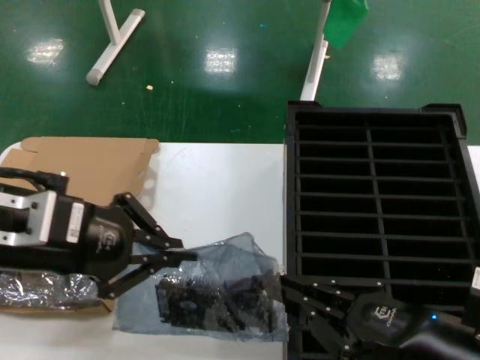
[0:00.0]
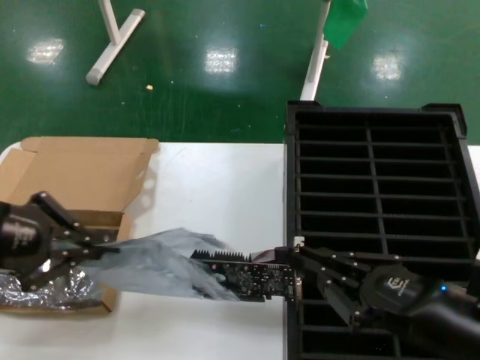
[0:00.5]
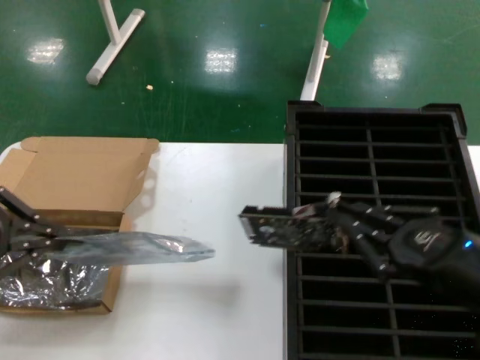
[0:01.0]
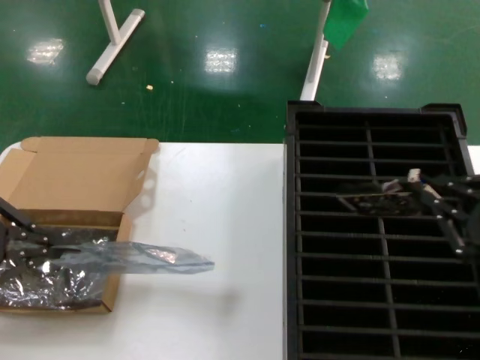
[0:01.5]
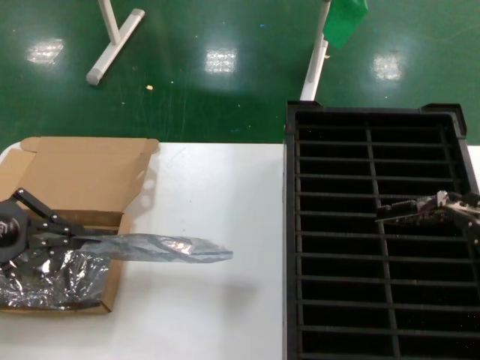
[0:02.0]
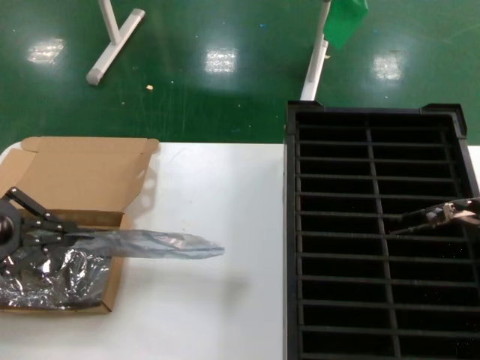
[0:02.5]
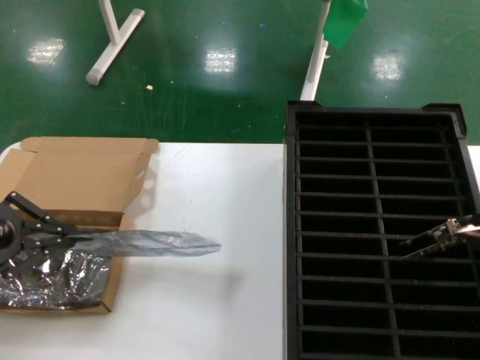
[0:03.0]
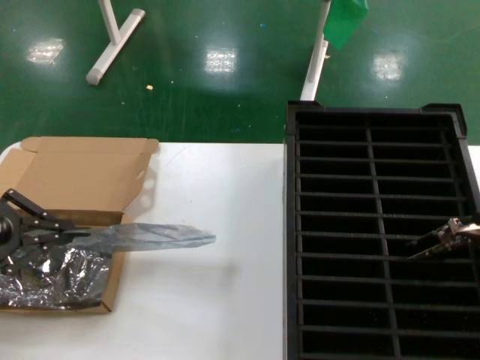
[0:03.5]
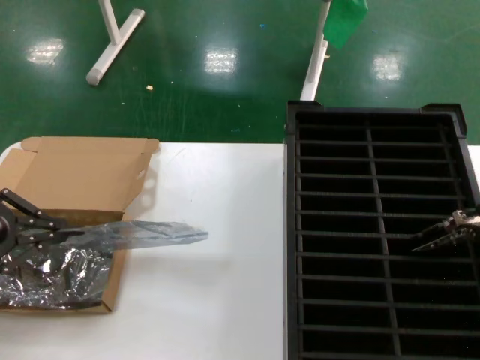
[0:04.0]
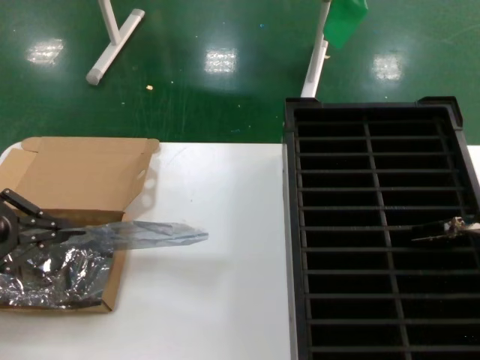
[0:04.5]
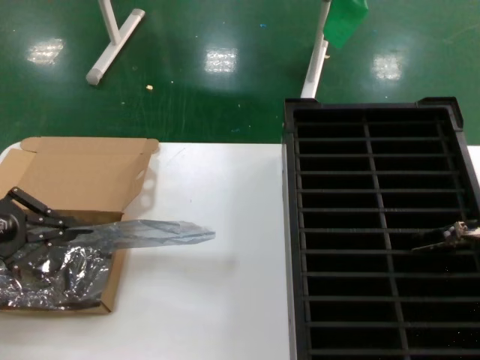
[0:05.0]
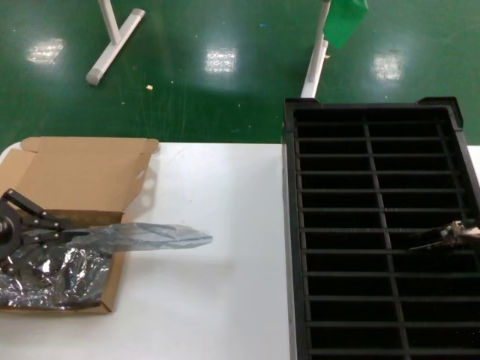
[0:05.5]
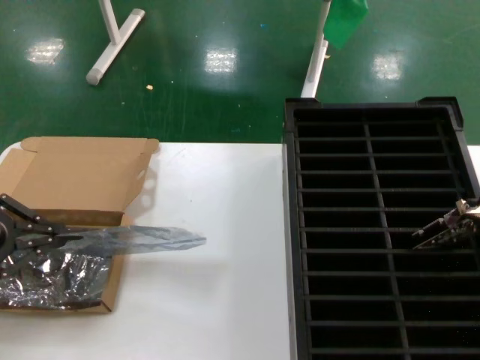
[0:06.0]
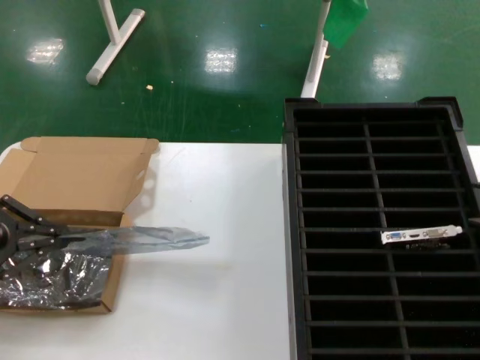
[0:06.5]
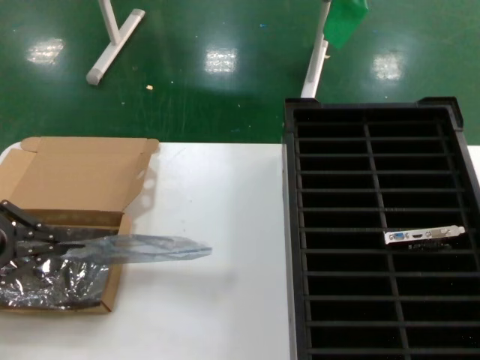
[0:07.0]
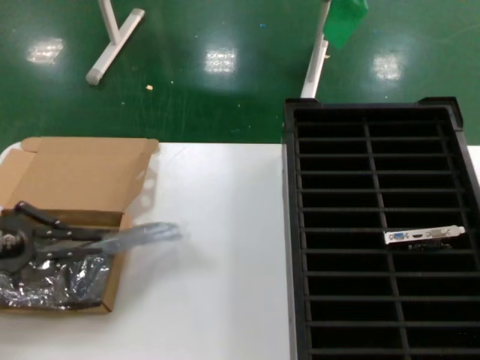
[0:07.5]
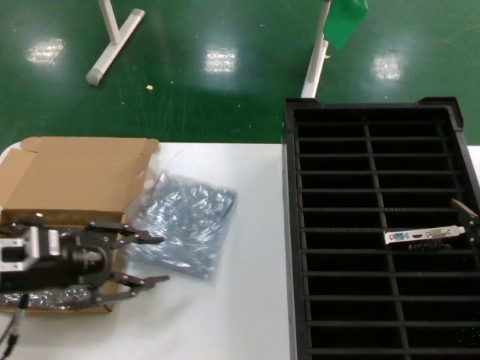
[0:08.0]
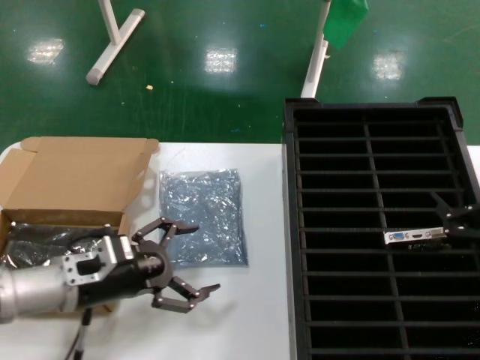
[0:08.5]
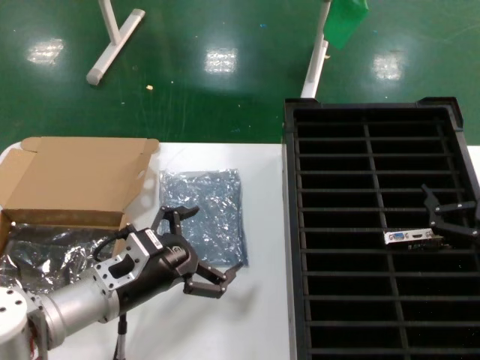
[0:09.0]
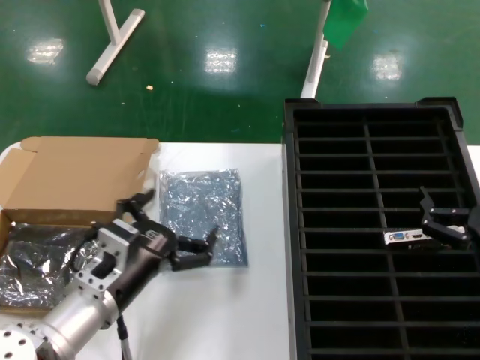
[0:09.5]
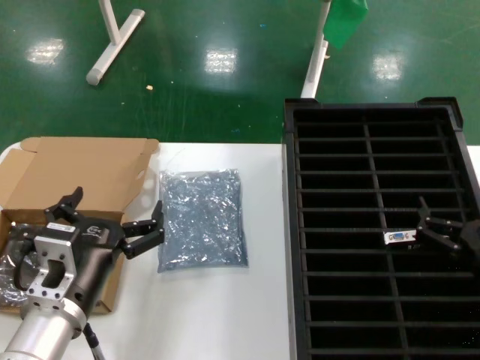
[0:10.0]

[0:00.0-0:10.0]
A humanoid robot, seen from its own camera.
Task of the whole recording: take out graphics card from box remove packaging put into black container.
Step, 0:01.0 to 0:06.5: Place the hard disk in the hard disk enclosure.
Step, 0:07.0 to 0:08.0: Place the down the bag.
0:00.0 to 0:02.0: The left hand heads to the left, downward and forward, covering roughly 20 cm, while the right hand is displaced upward and to the right by about 15 cm.
0:02.0 to 0:04.0: The right hand heads upward, covering about 5 cm.
0:04.0 to 0:06.0: The hands make only small movements.
0:06.0 to 0:08.0: The right hand moves downward, about 5 cm. The left hand heads to the right and downward, covering about 10 cm.
0:08.0 to 0:10.0: The left hand goes about 20 cm to the right and backward. Meanwhile the right hand is displaced downward and to the left by roughly 15 cm.
